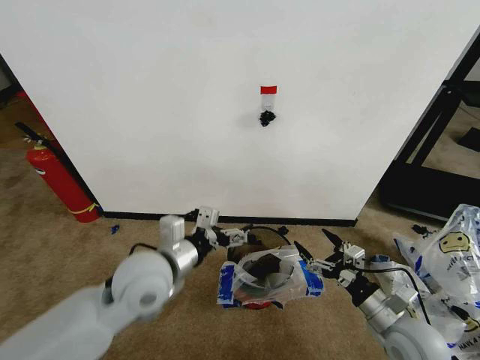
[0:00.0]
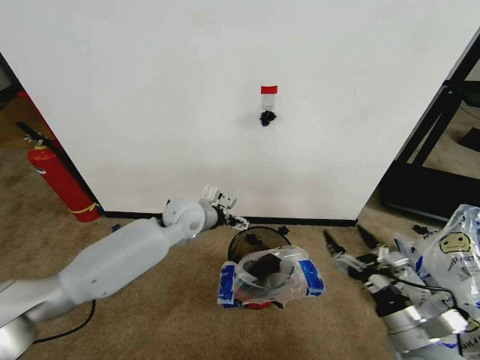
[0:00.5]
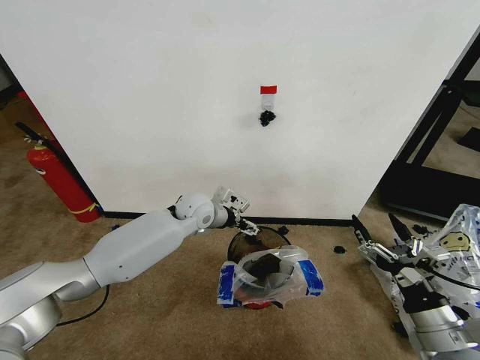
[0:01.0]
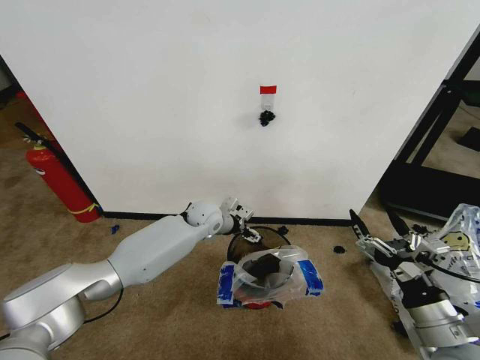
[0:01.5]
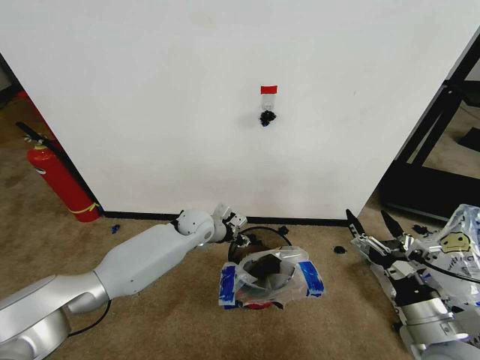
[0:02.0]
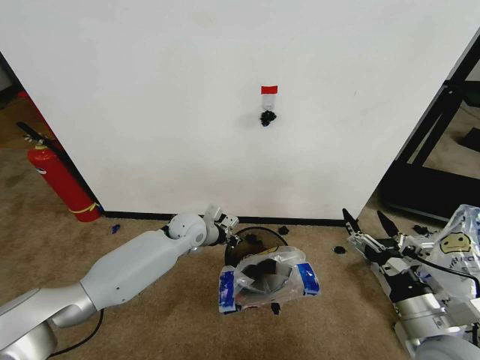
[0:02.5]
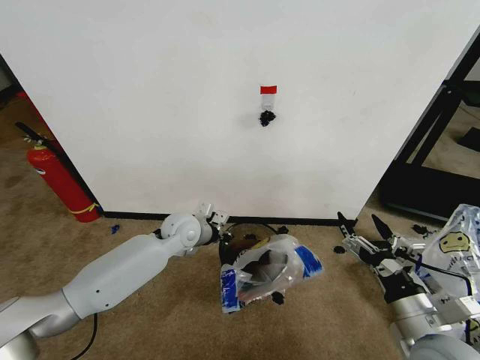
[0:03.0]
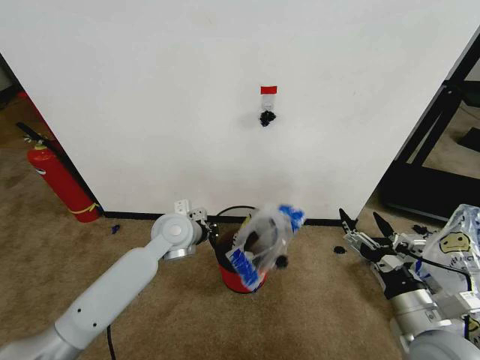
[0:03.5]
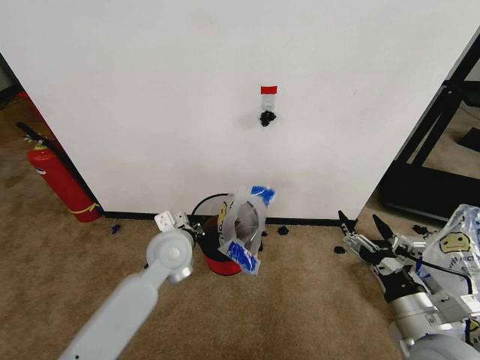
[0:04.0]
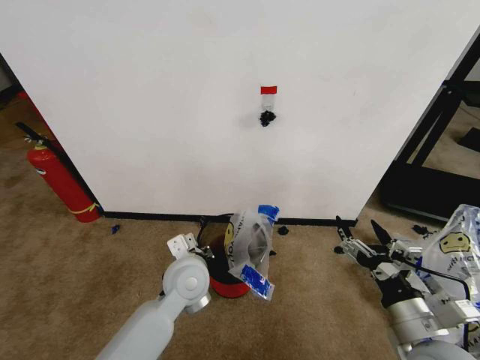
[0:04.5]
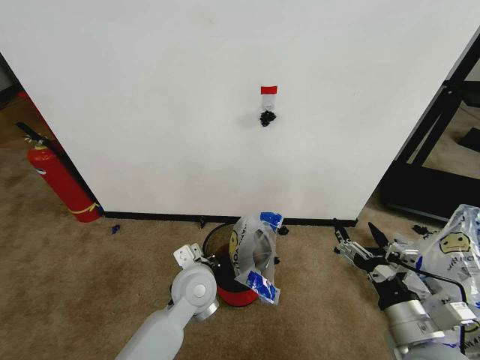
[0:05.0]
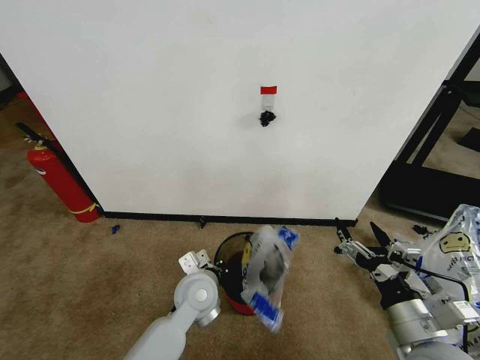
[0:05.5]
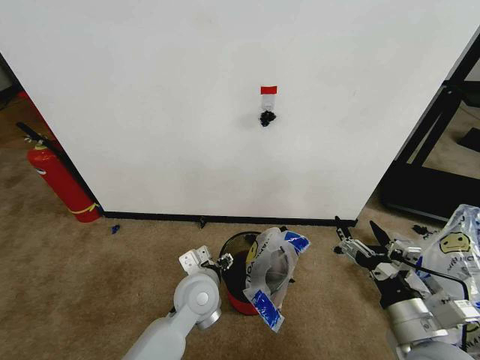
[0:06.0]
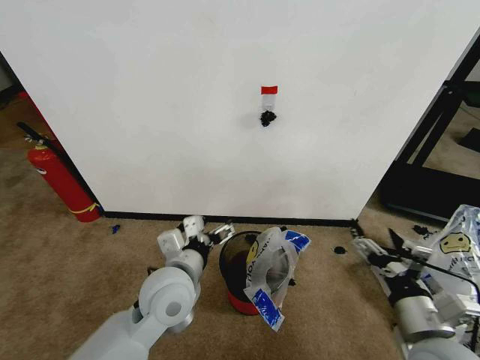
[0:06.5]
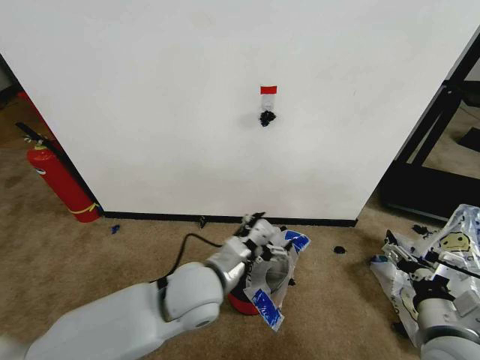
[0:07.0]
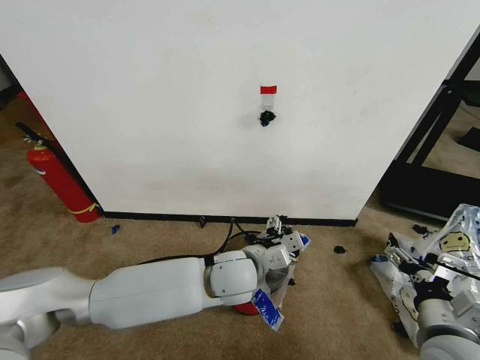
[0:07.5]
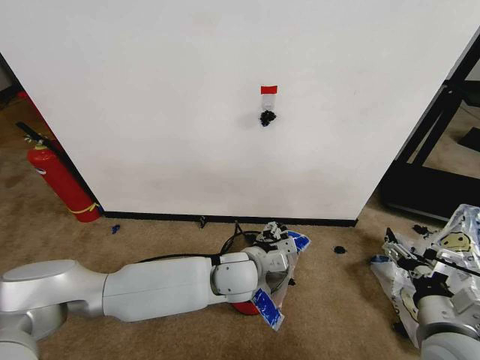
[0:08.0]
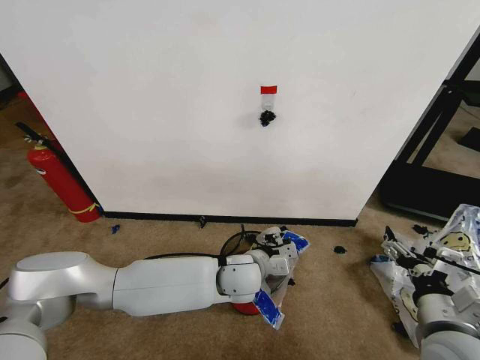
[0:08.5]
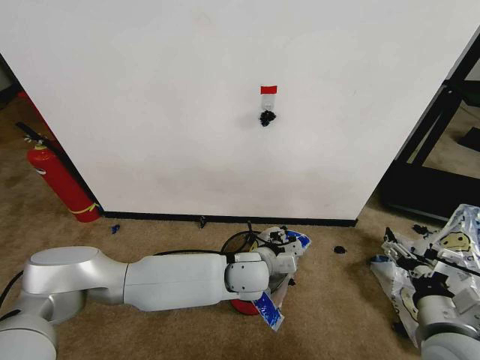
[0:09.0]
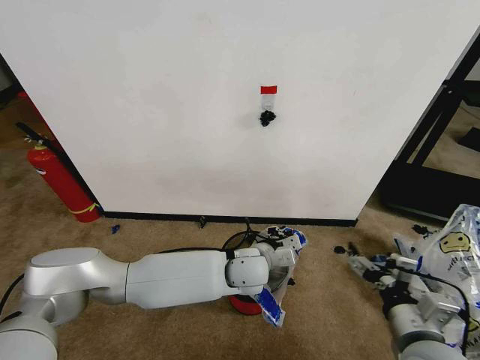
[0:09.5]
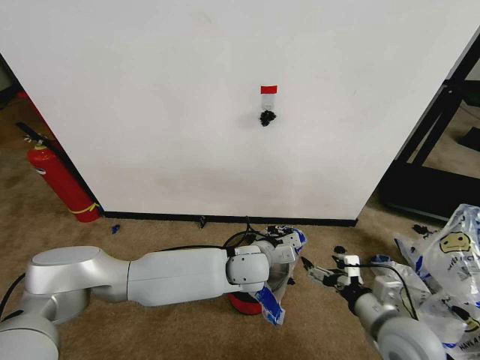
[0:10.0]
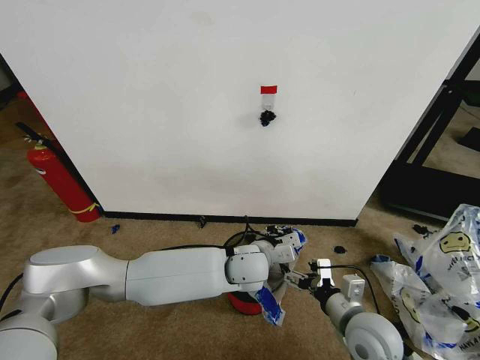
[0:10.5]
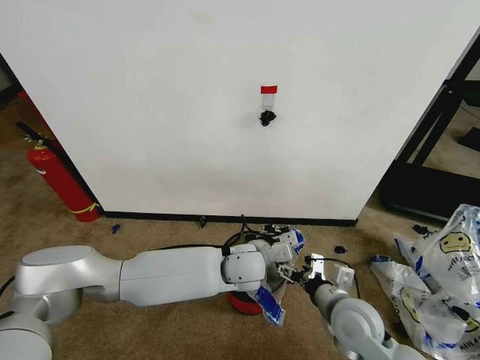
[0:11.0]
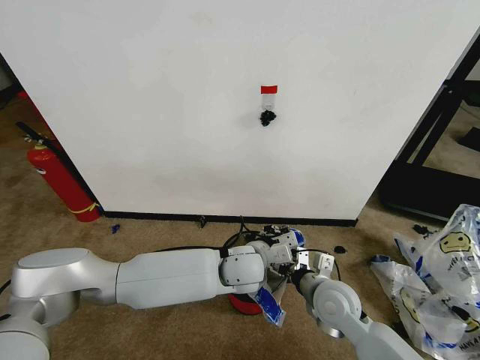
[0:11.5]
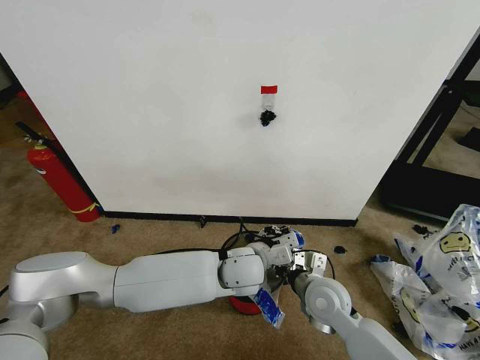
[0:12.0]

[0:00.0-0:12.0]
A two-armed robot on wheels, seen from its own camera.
Task of the whole recording: Pick up the garbage bag from the wall and place it over the trash bin.
0:00.0 to 0:02.0: The left gripper is displaced forward and downward by about 25 cm, and closes; the right gripper shifts approximately 10 cm upward and backward.
0:02.0 to 0:04.0: The left gripper heads backward and upward, covering approximately 15 cm.
0:04.0 to 0:06.0: The left gripper heads backward, downward and to the right, covering approximately 10 cm, and opens.
0:06.0 to 0:08.0: The left gripper heads to the right, covering roughly 10 cm.
0:08.0 to 0:10.0: The right gripper moves about 5 cm, while the left gripper closes.
0:10.0 to 0:12.0: The right gripper goes approximately 15 cm to the left and forward, and closes up.

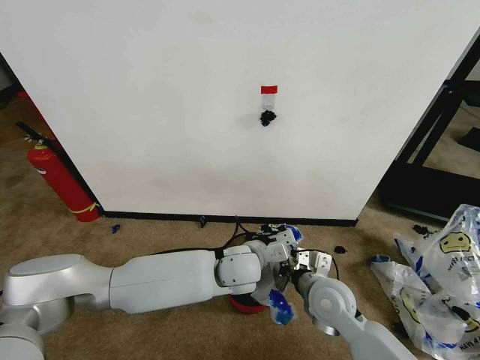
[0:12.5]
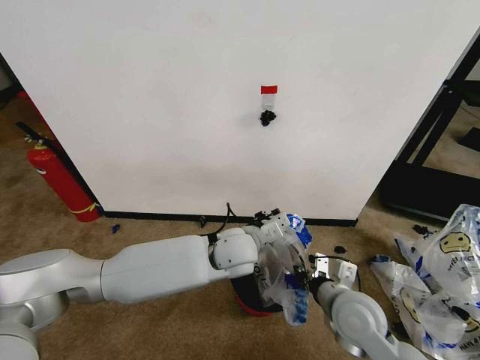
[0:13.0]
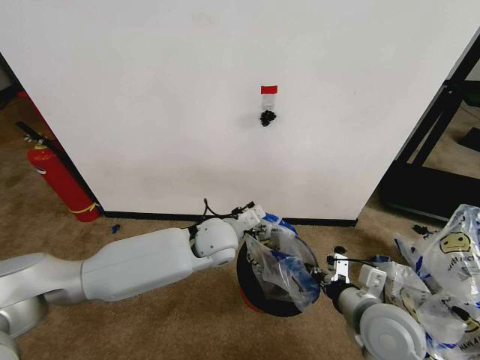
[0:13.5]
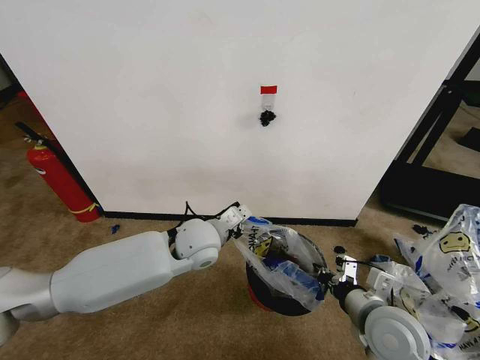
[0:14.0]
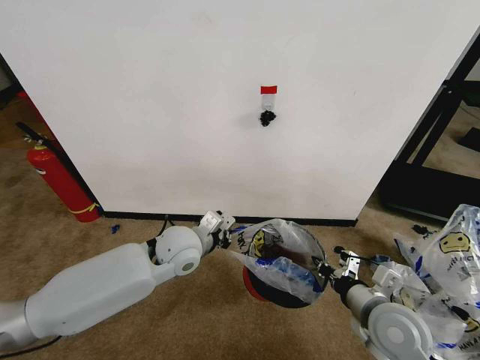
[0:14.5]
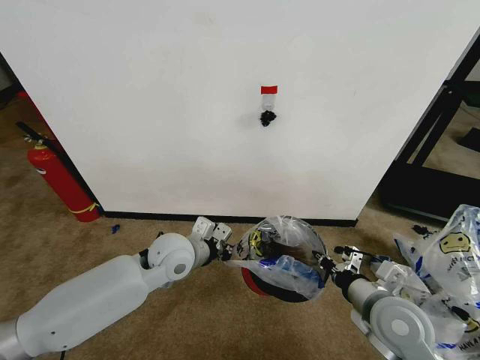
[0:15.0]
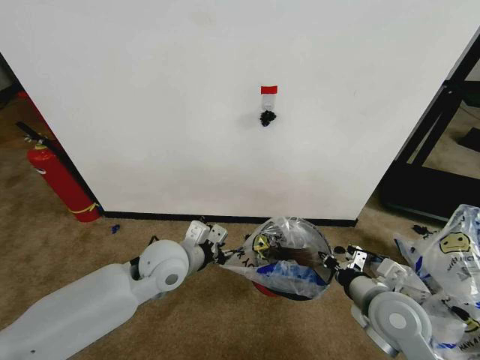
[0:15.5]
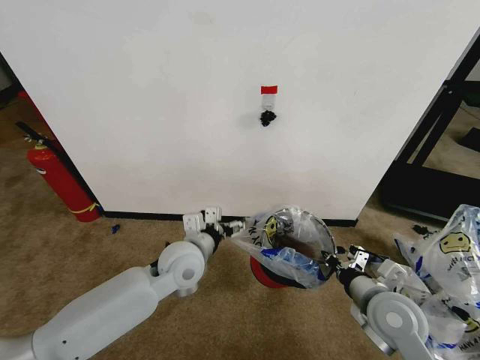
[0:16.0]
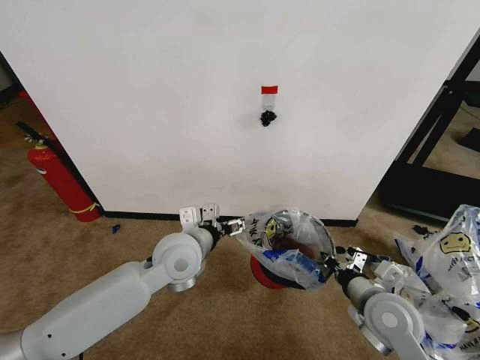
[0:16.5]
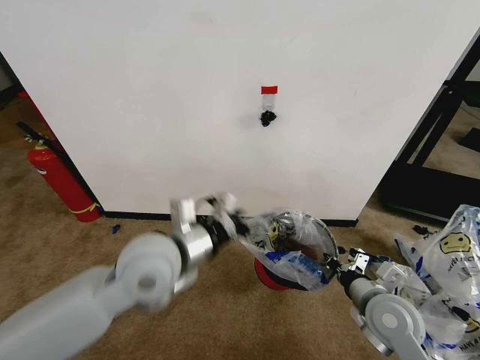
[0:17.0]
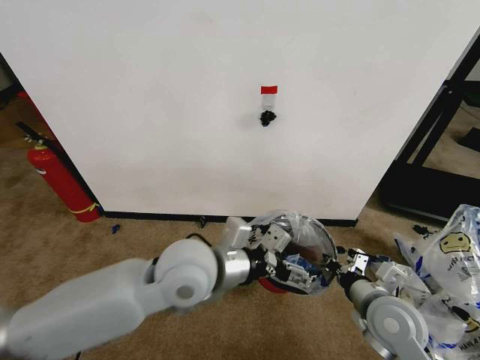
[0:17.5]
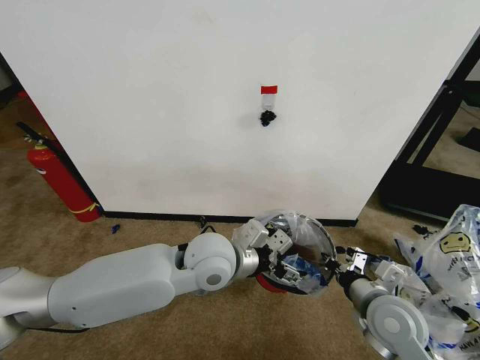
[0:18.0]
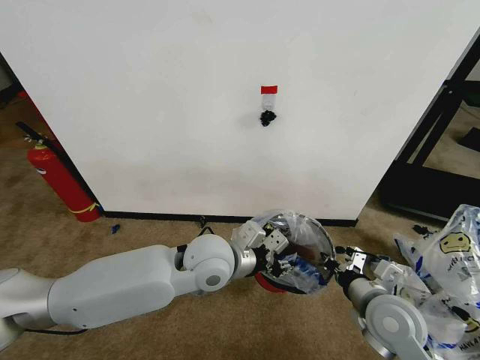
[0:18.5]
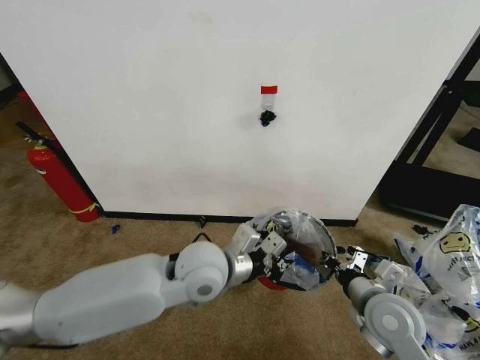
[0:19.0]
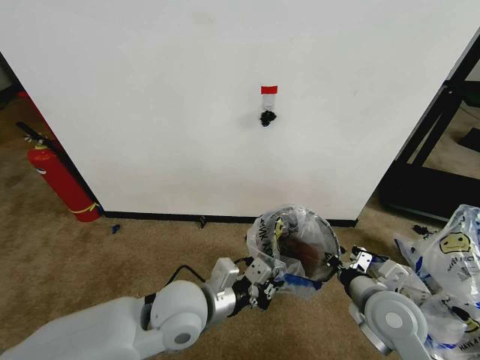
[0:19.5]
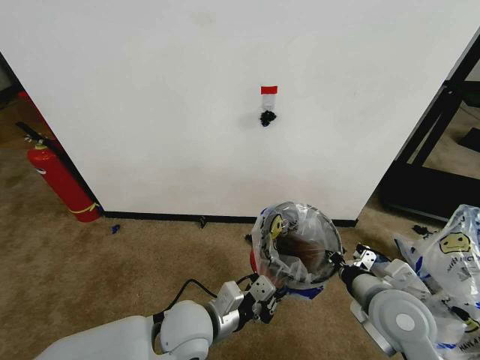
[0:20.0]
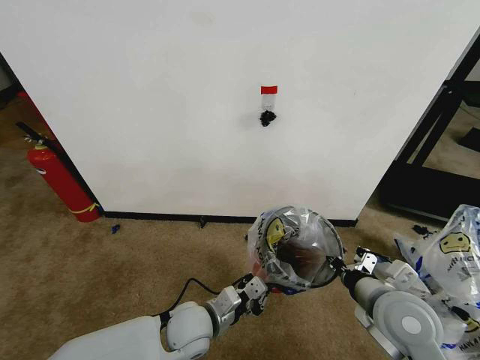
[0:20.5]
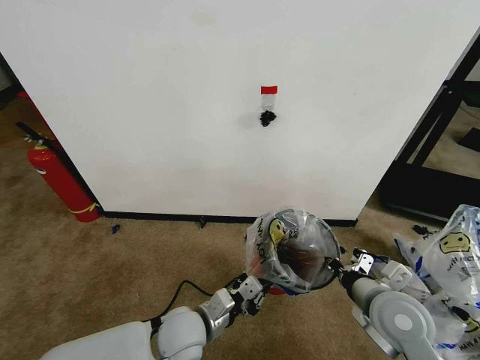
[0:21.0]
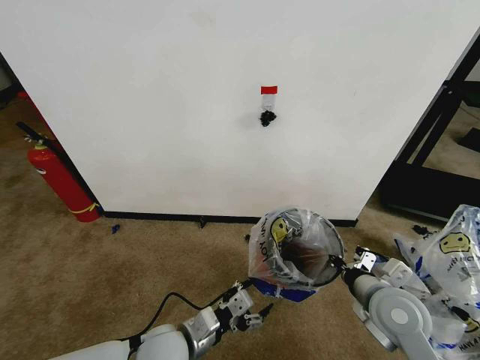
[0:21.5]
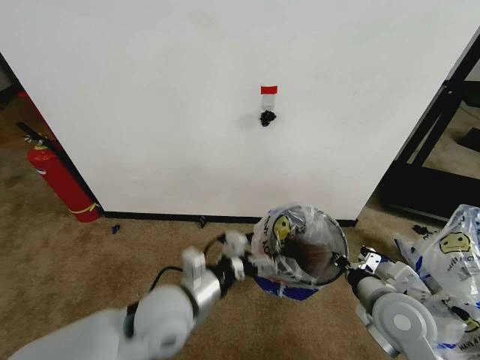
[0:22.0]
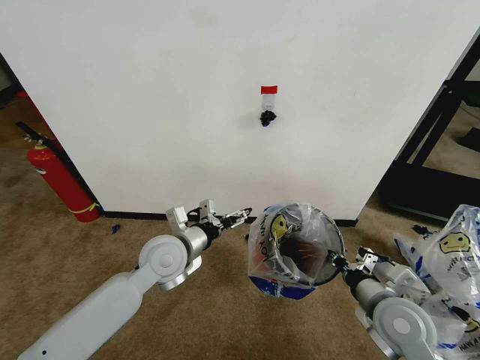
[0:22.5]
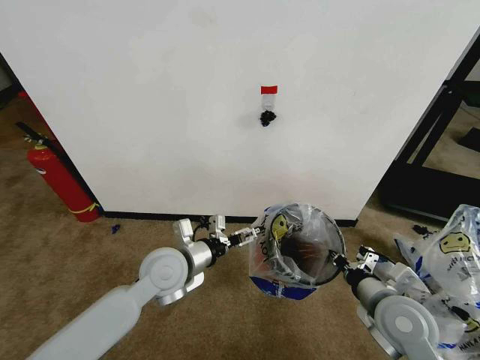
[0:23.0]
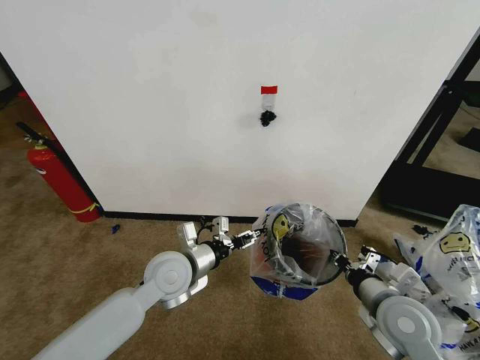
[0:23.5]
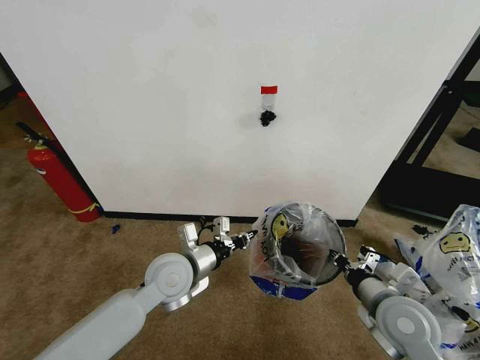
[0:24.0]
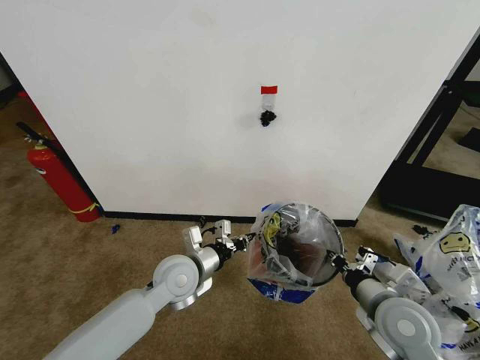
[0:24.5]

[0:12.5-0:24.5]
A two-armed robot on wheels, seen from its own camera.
Task of the whole recording: Pick up the garbage bag from the wall and place it over the trash bin.
0:12.5 to 0:14.5: The right gripper heads to the right and backward, covering some 10 cm. The left gripper travels to the left by about 15 cm.
0:14.5 to 0:16.5: The left gripper opens its fingers.
0:16.5 to 0:18.5: The left gripper moves to the right, approximately 5 cm, and closes.
0:18.5 to 0:20.5: The left gripper is displaced downward and backward by about 15 cm, and closes.
0:20.5 to 0:22.5: The left gripper goes approximately 15 cm upward, forward and to the left, and opens.
0:22.5 to 0:24.5: The left gripper ends up approximately 5 cm from where it was, and closes.

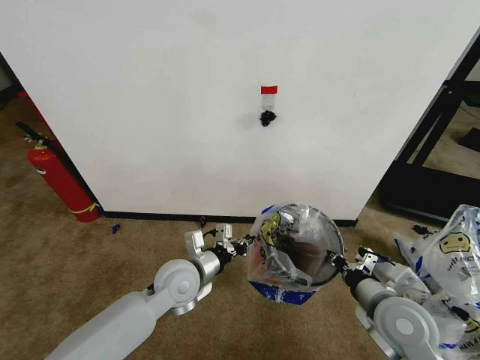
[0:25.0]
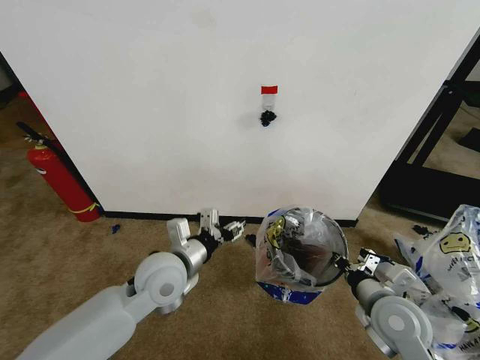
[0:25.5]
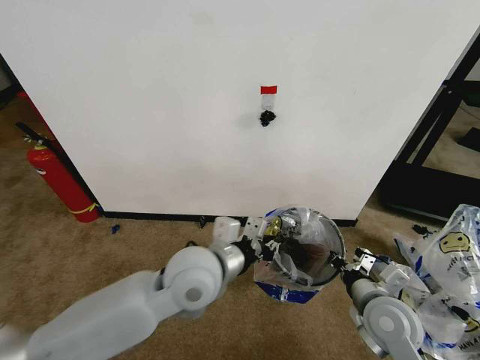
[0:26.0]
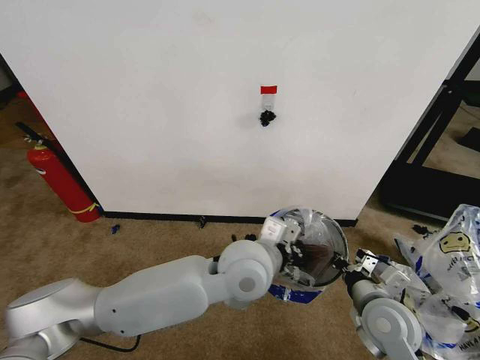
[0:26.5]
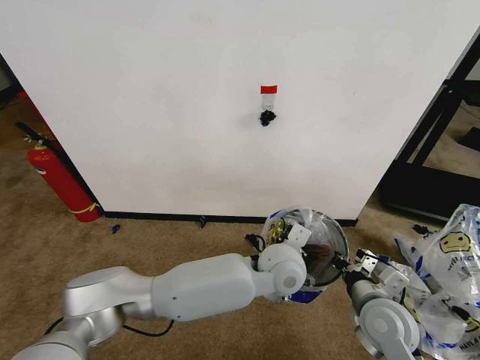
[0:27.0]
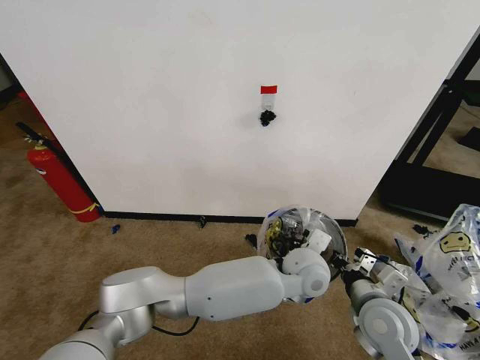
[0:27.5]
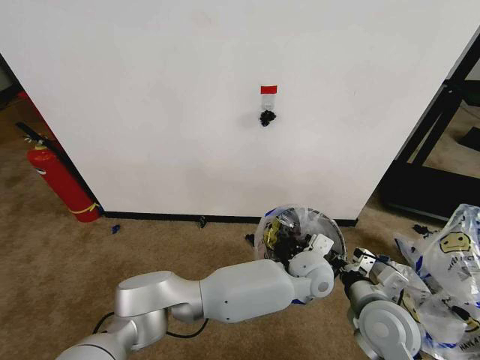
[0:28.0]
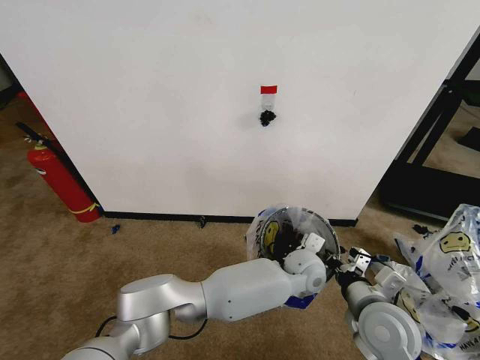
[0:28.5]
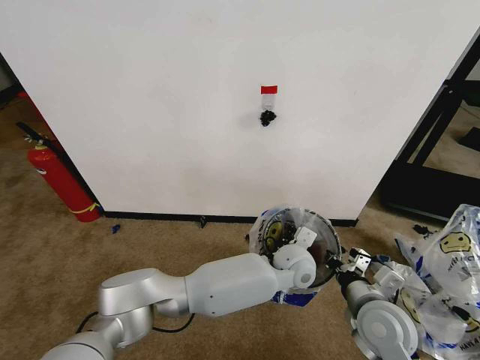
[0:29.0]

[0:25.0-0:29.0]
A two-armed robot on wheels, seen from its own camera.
Task of the whole recording: Pick up the garbage bag from the wall and place it over the trash bin.
0:25.0 to 0:27.0: The left gripper goes about 20 cm to the right, and opens and closes again.
0:27.0 to 0:29.0: The left gripper heads downward, covering about 5 cm.
